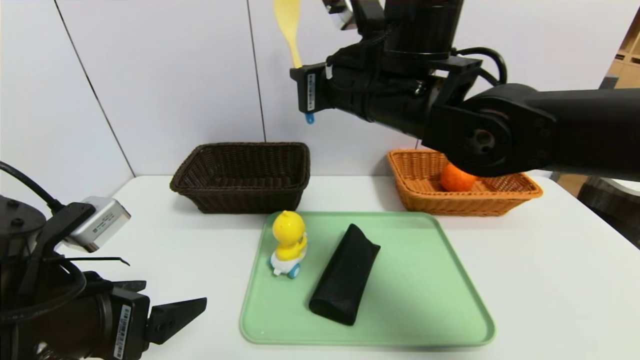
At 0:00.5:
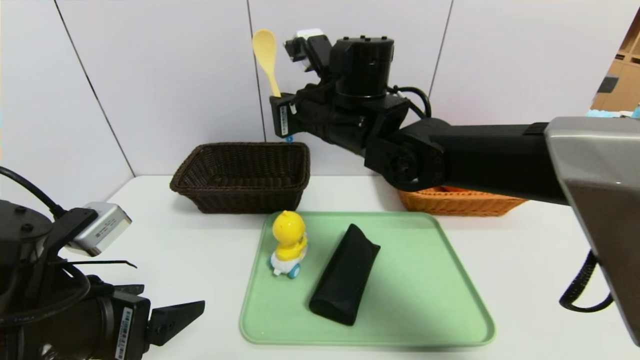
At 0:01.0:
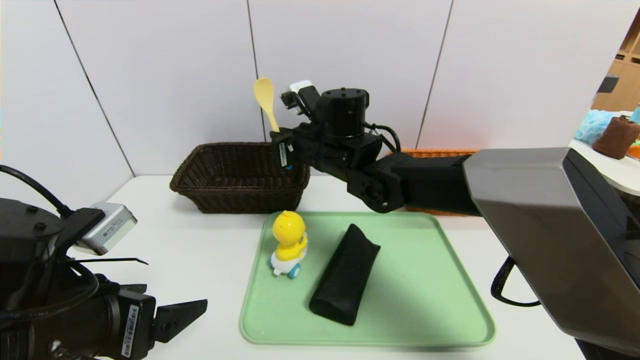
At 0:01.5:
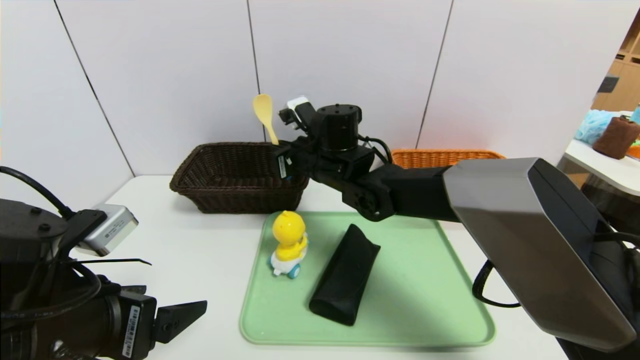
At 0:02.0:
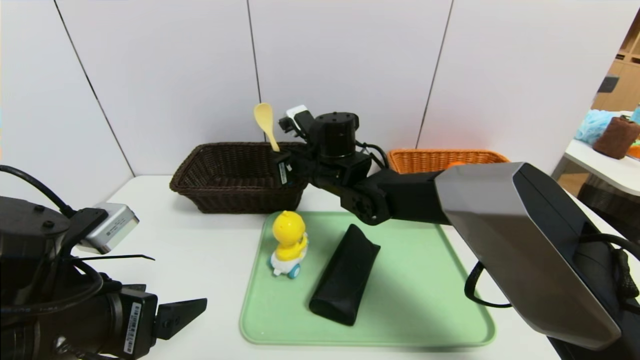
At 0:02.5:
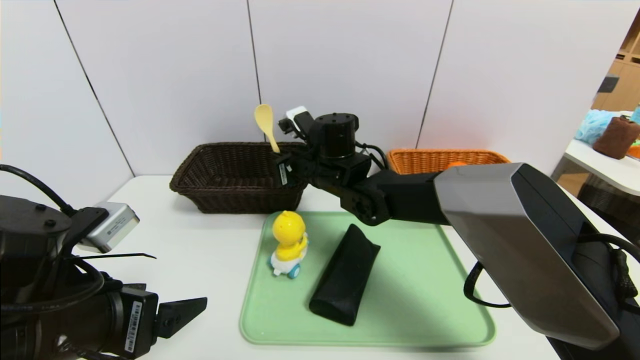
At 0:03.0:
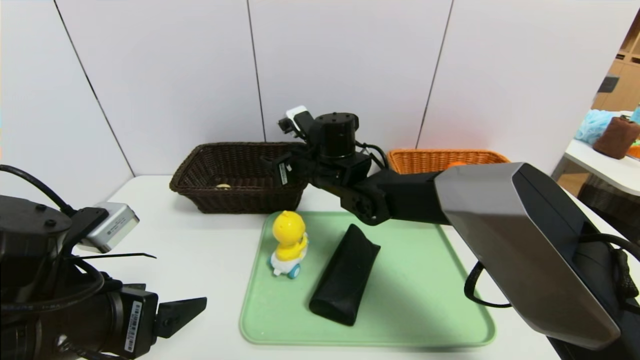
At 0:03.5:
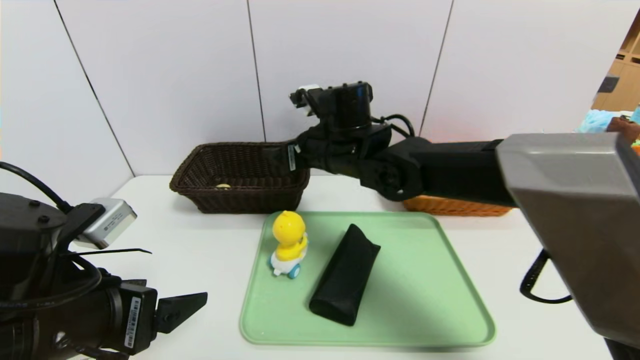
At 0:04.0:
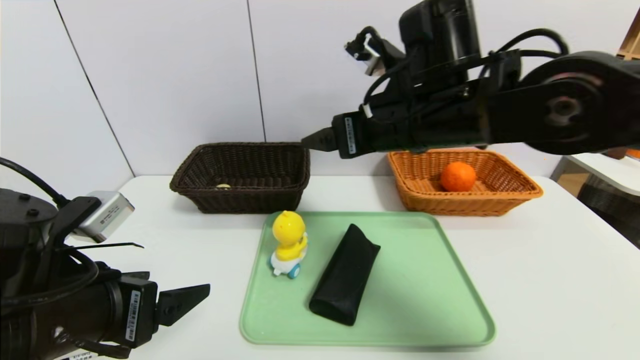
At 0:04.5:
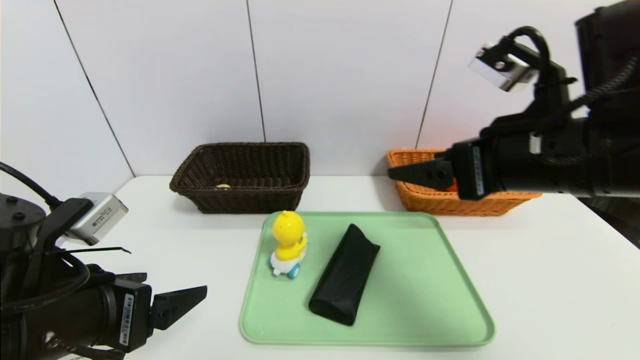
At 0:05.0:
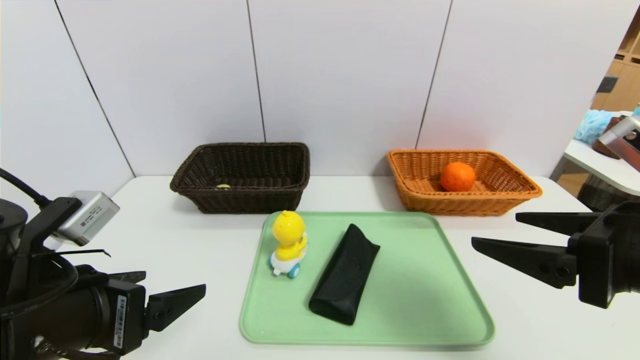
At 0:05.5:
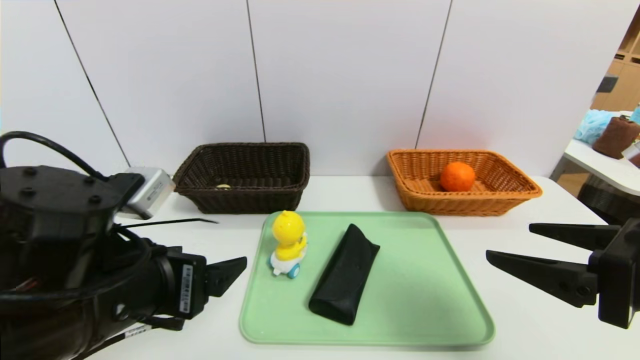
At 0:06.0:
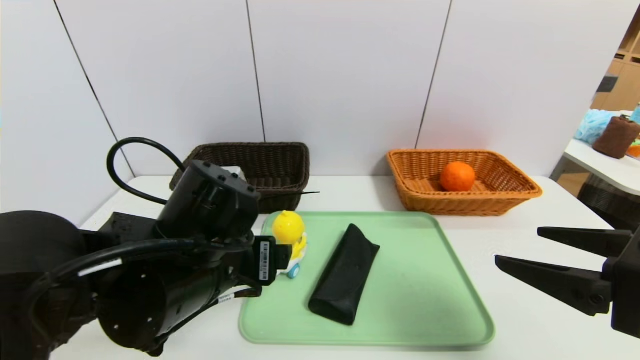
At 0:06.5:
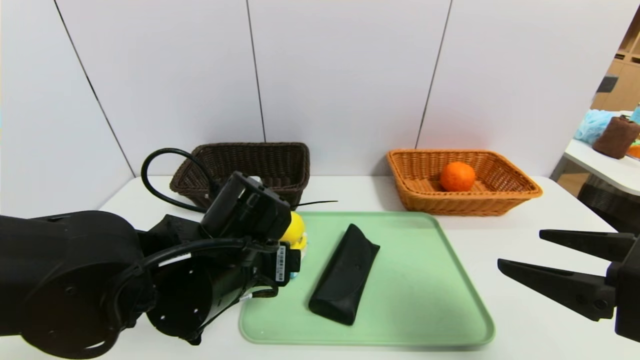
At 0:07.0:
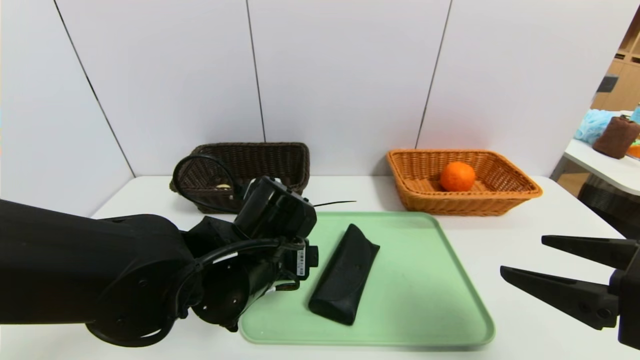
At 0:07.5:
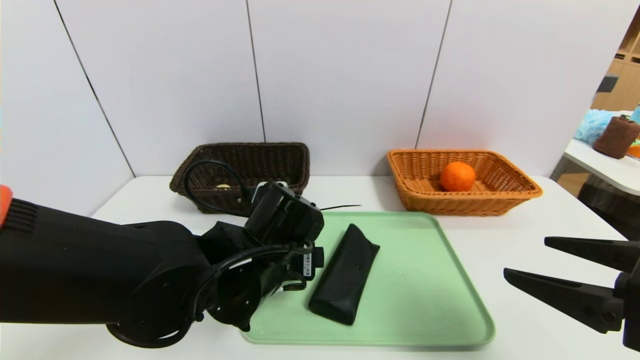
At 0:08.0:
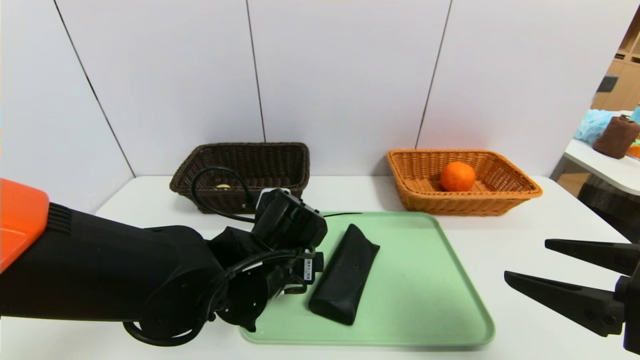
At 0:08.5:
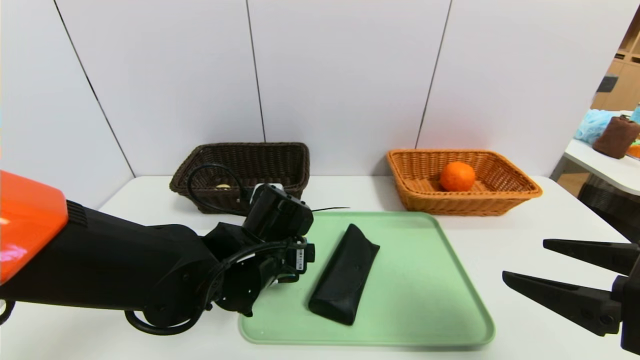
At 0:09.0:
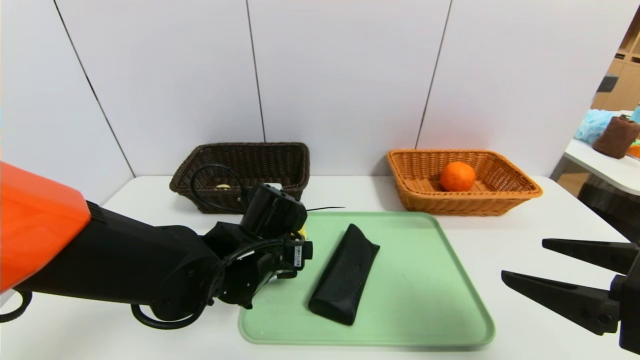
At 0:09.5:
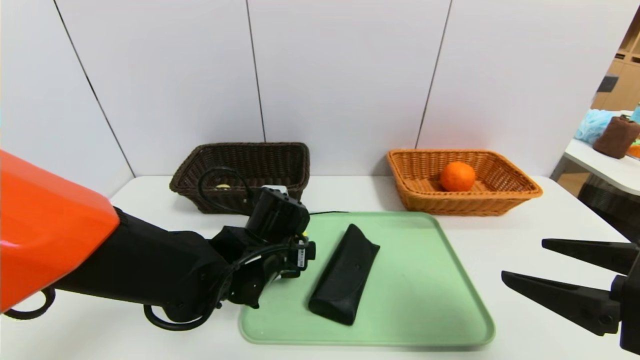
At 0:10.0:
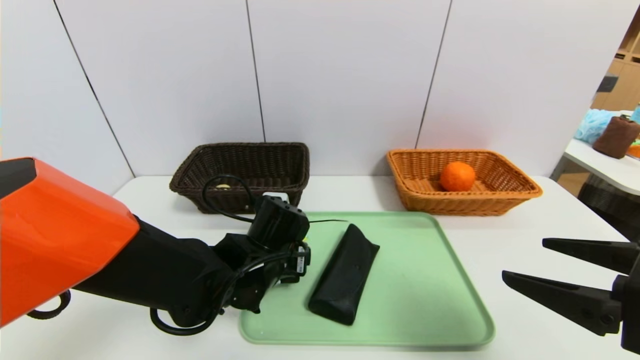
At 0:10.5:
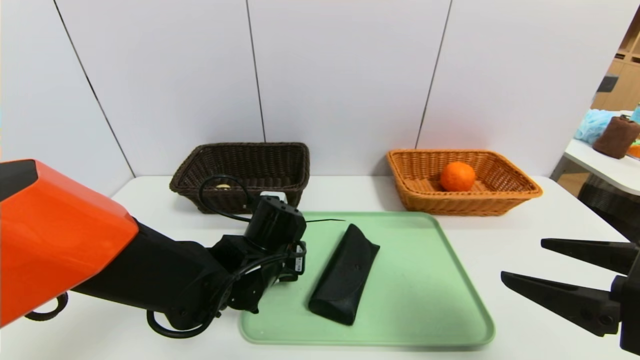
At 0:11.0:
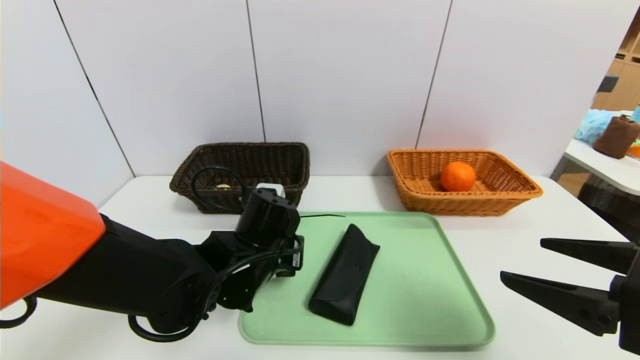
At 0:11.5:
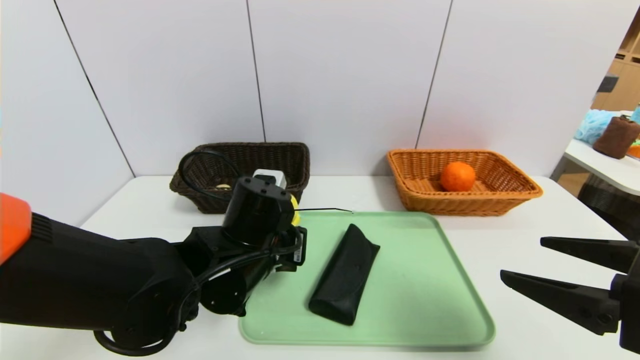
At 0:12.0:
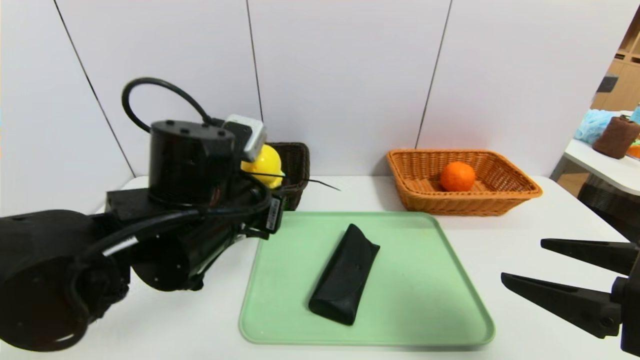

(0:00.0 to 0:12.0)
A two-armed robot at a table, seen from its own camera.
Task of the whole recording: place the food in the right basket with the right gripper, and place the non food items in the left basket with the left gripper.
0:00.0 - 0:02.0: The right gripper travels downward and forward by roughly 15 cm.
0:02.0 - 0:04.0: The right gripper is displaced upward, backward and to the right by approximately 20 cm, and opens.
0:04.0 - 0:06.0: The right gripper is displaced backward and to the right by approximately 25 cm. Meanwhile the left gripper shifts roughly 10 cm to the right and forward.
0:06.0 - 0:08.0: The left gripper goes roughly 5 cm downward.
0:08.0 - 0:10.0: The left gripper ends up some 5 cm from where it was.
0:10.0 - 0:12.0: The left gripper is displaced upward by approximately 10 cm, and closes.

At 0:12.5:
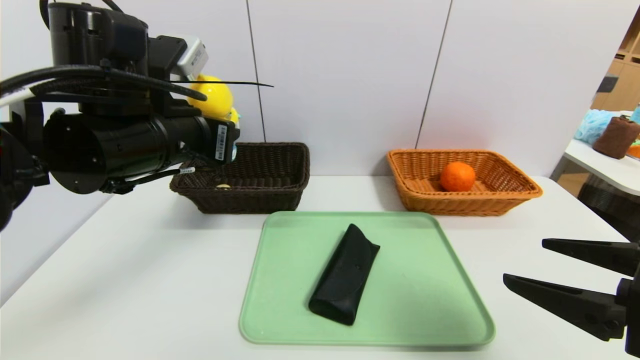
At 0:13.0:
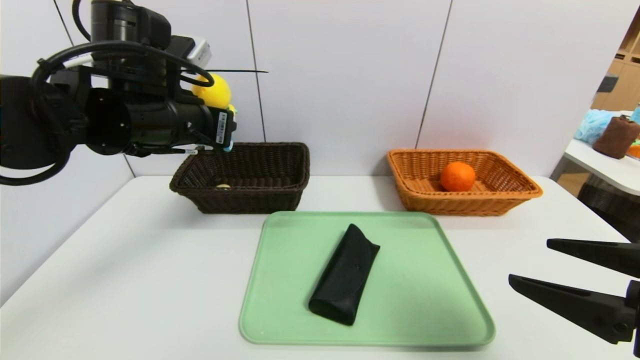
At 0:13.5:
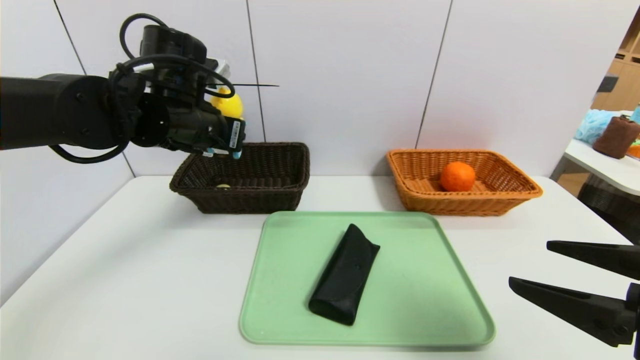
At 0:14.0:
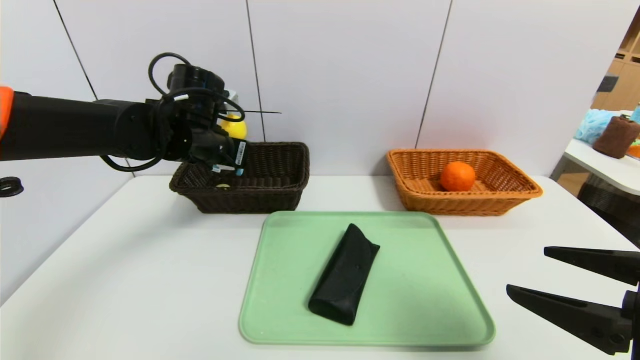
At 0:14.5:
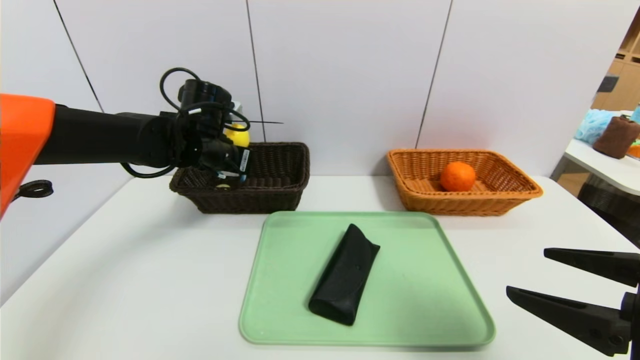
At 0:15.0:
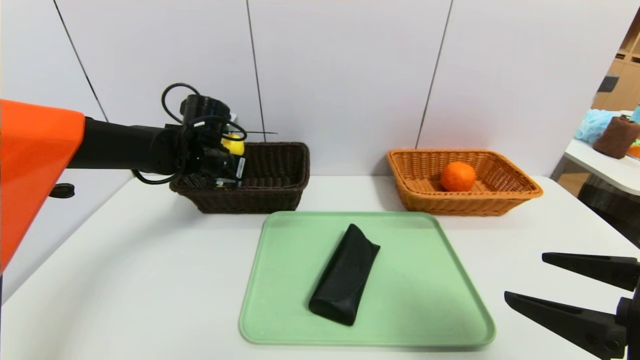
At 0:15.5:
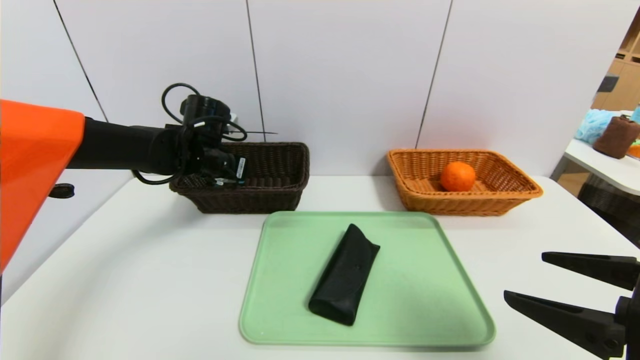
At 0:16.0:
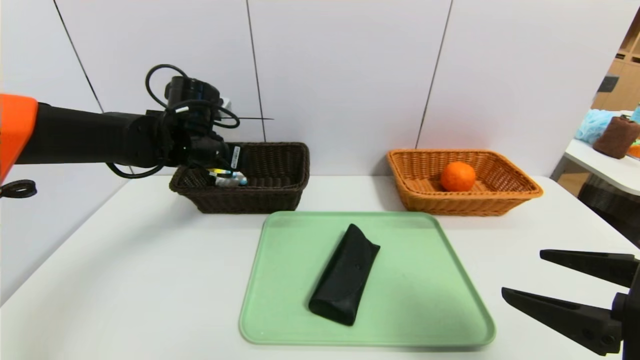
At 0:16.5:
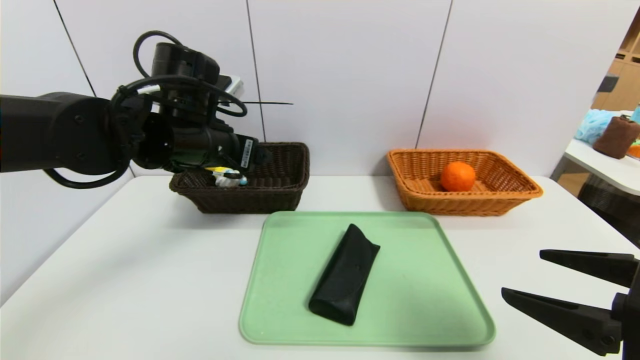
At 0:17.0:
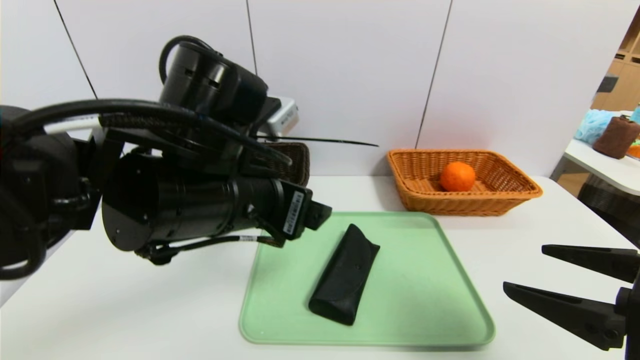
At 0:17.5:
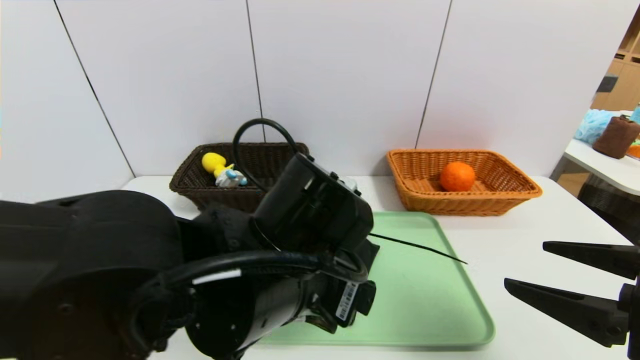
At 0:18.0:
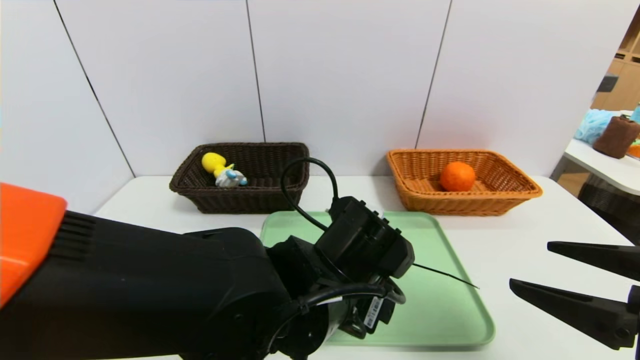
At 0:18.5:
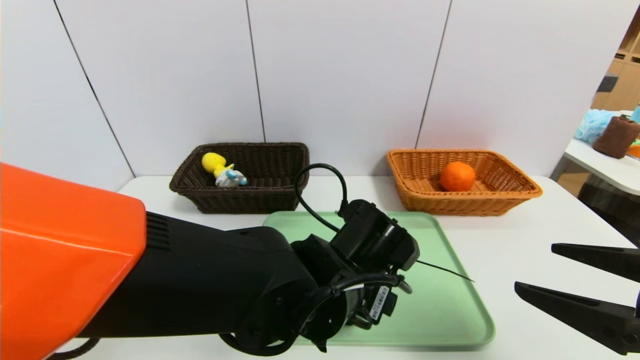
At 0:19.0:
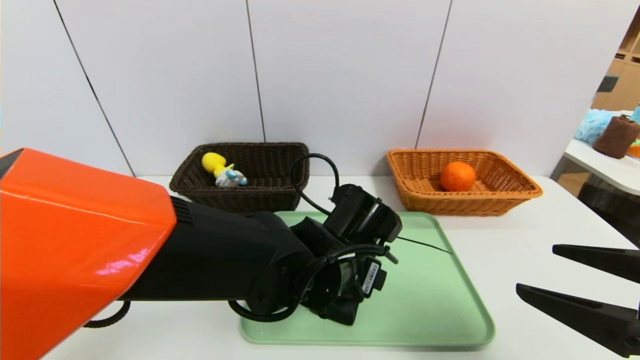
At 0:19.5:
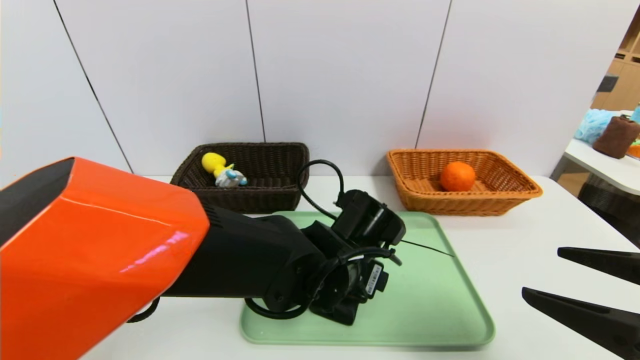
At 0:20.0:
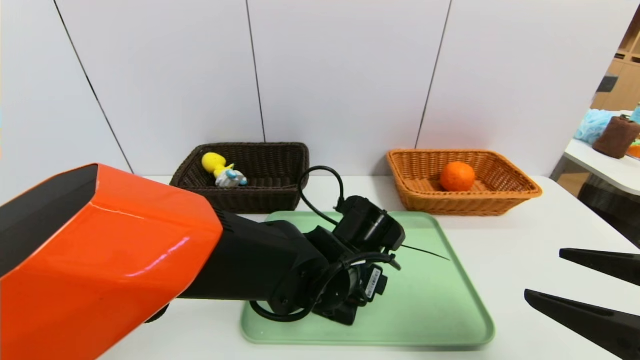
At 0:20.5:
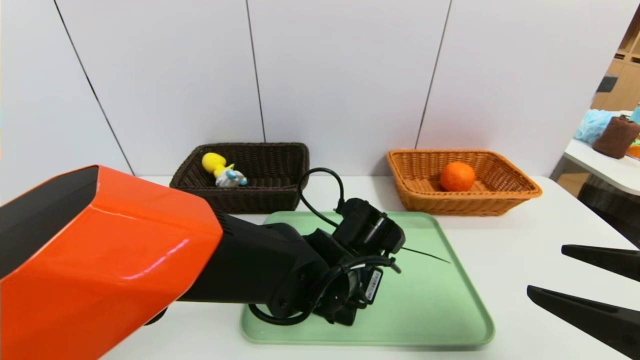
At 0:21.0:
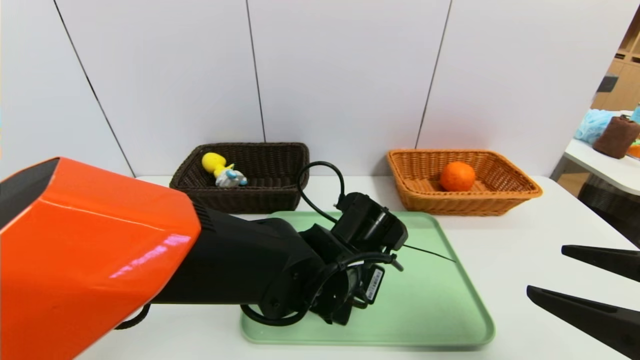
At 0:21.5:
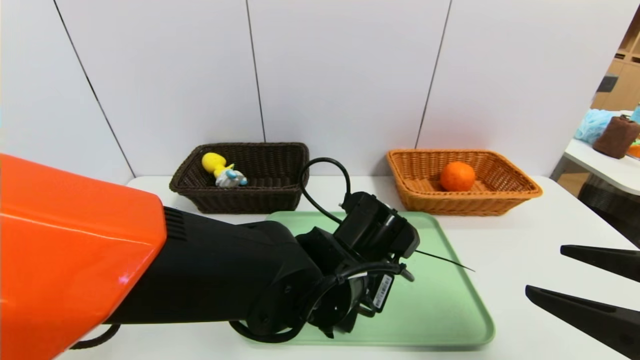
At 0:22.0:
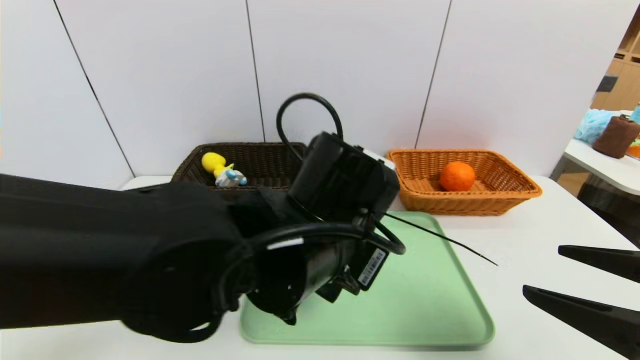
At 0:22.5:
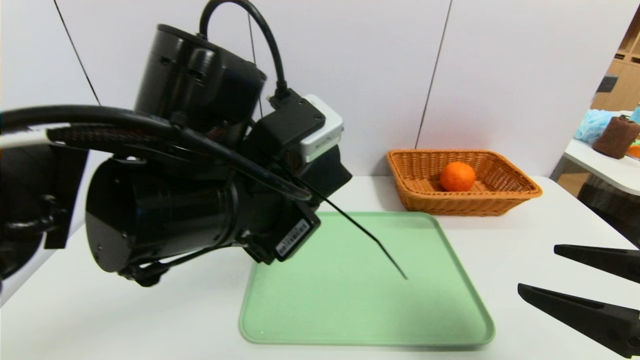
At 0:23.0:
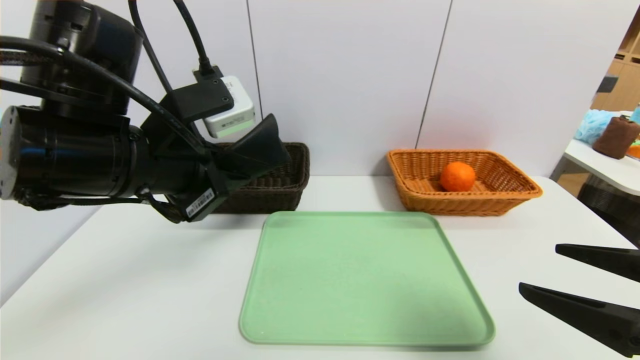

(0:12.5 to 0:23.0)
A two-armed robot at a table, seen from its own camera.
Task of the whole recording: place the food in the right basket with the right gripper, and place the non food items in the left basket with the left gripper.
Step, 0:12.5 - 0:16.0: Grasp the duck toys and put it in the left basket.
0:12.5 - 0:14.5: The left gripper is displaced forward and downward by roughly 15 cm.
0:14.5 - 0:16.5: The left gripper heads backward, covering roughly 10 cm, and opens its fingers.
0:16.5 - 0:19.0: The left gripper shifts approximately 20 cm to the right, downward and backward.
0:19.0 - 0:21.0: The left gripper closes its fingers.
0:21.0 - 0:23.0: The left gripper shifts some 25 cm to the left and upward.
